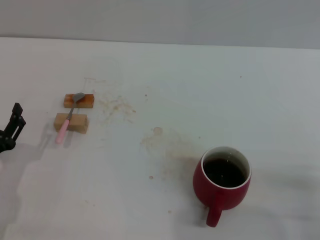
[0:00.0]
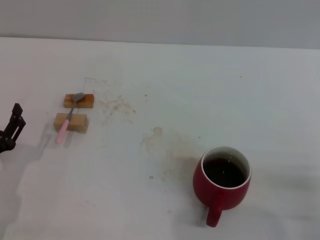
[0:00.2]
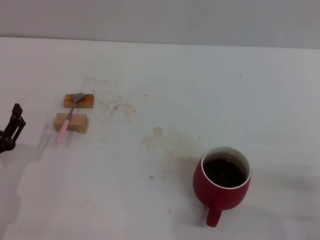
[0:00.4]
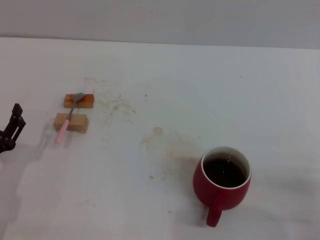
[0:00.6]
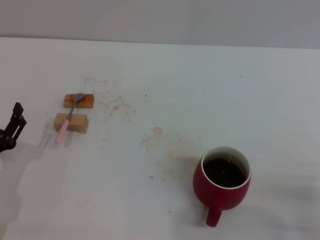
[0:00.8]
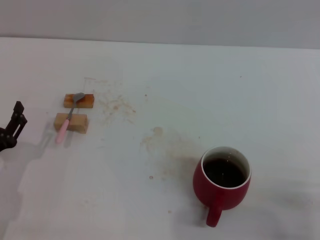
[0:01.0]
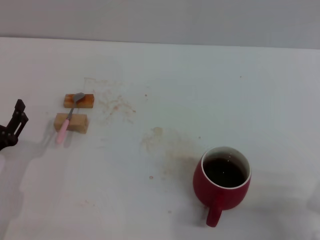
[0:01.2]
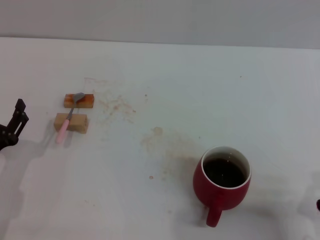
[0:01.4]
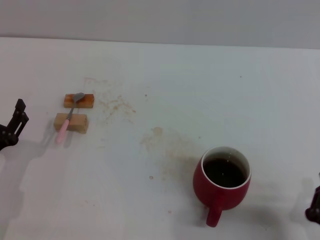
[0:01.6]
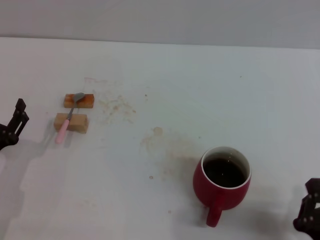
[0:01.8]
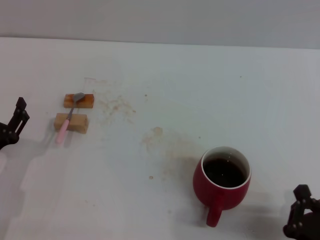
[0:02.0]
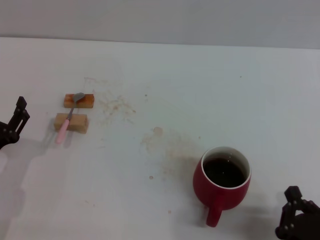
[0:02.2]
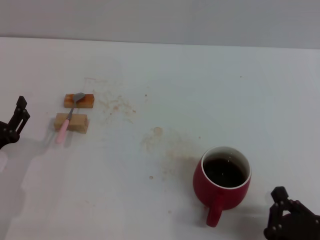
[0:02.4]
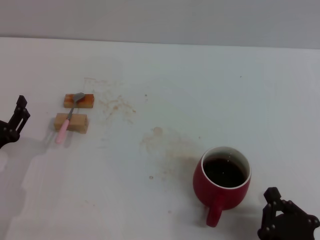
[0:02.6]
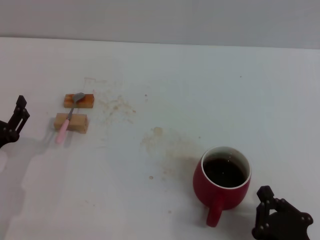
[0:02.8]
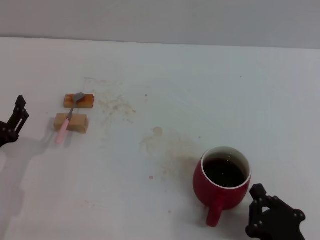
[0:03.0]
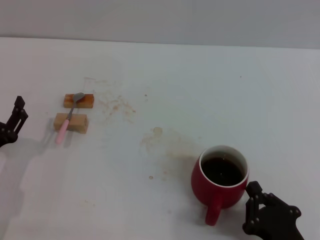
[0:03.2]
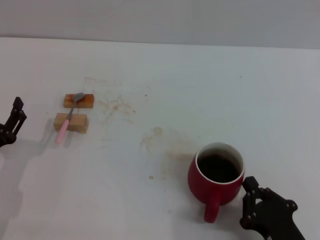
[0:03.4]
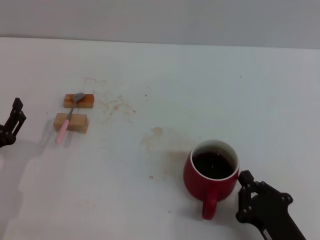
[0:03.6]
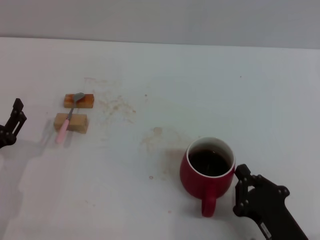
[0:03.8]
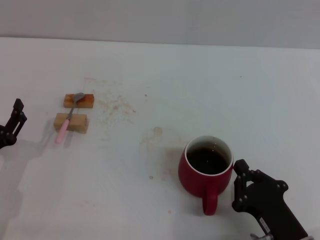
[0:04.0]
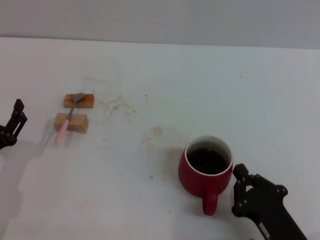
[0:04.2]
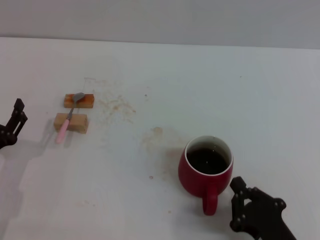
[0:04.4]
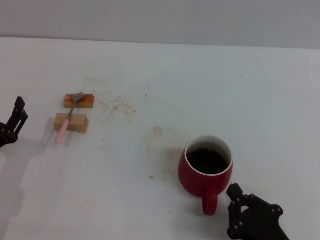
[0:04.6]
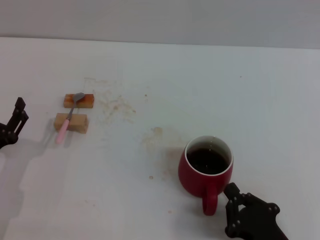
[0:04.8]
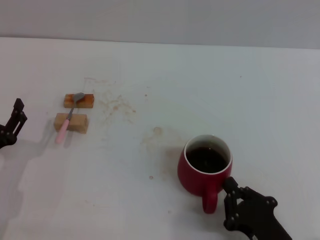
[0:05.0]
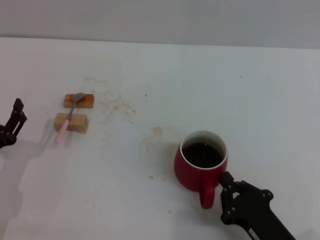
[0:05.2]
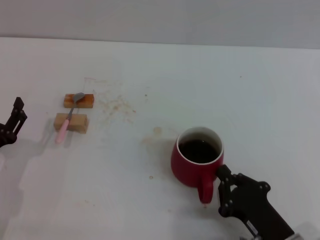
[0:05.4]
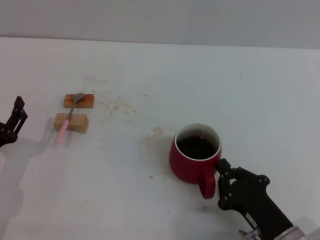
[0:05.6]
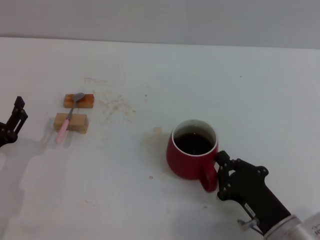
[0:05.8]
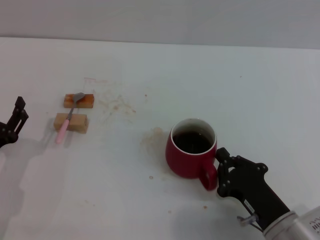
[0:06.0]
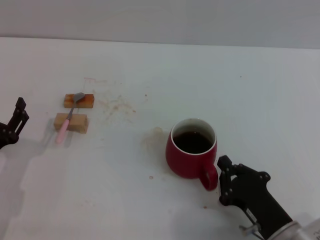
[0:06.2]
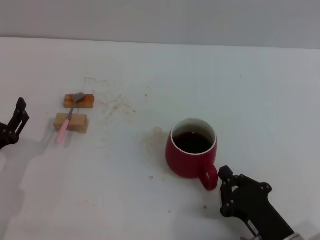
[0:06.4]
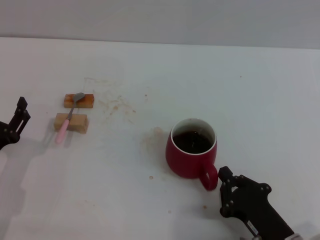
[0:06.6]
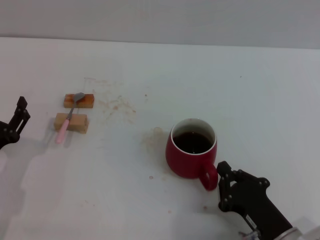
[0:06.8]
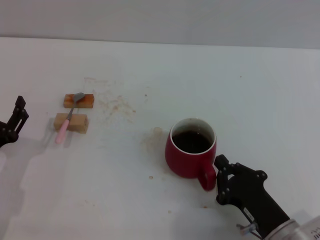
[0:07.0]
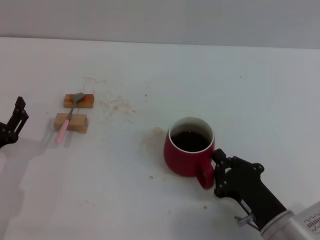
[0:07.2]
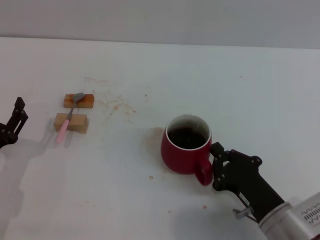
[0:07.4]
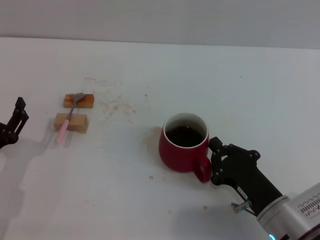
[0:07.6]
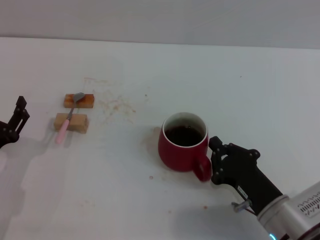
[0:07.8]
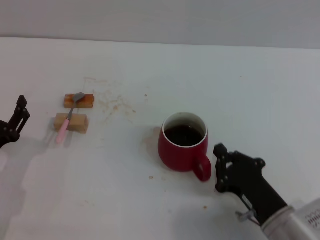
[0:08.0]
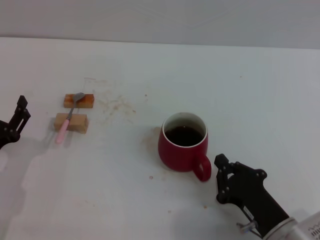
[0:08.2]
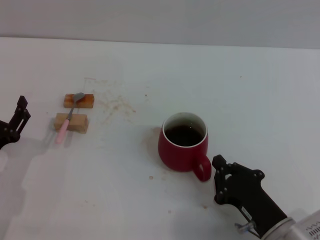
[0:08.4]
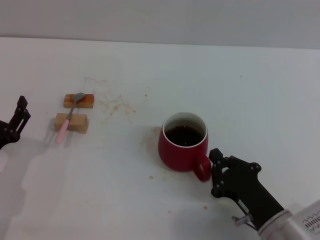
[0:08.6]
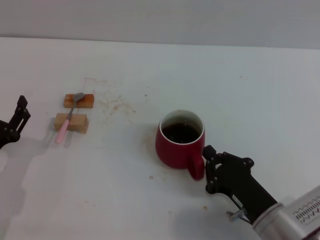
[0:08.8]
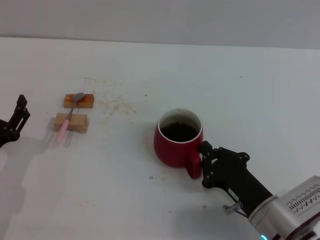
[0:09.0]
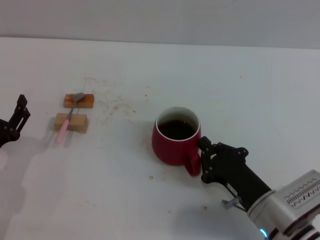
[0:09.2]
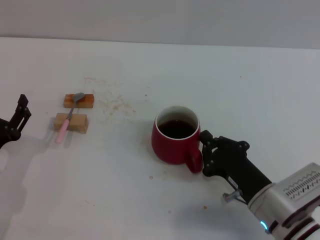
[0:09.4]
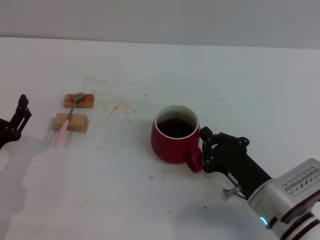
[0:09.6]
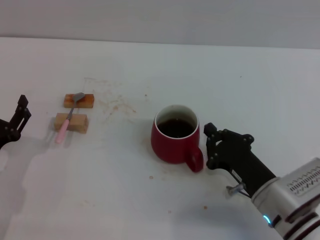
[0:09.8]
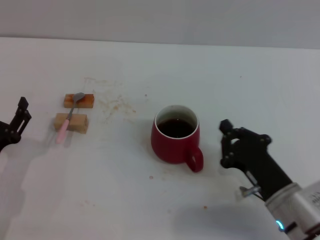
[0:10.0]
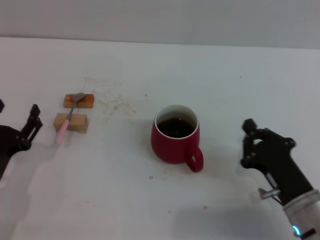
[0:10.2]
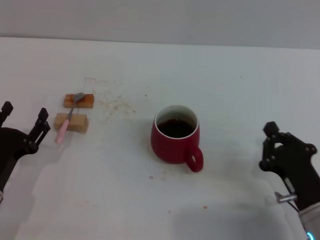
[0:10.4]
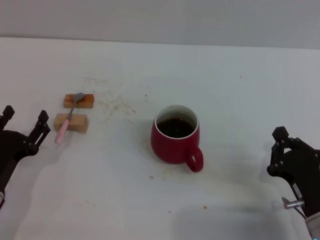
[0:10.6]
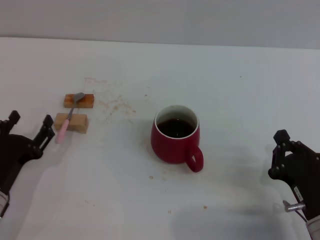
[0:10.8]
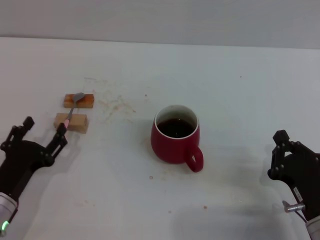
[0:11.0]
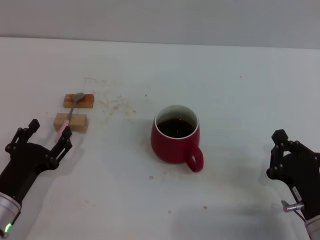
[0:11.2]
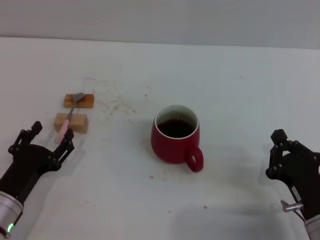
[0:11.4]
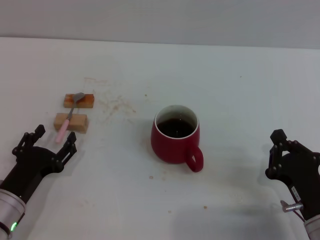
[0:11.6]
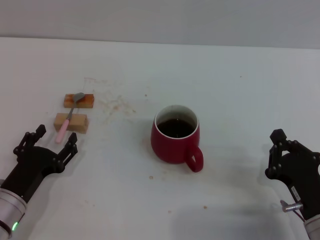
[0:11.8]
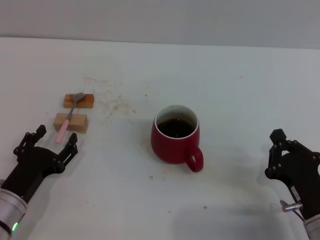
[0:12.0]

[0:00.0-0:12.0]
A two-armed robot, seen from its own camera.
Task of the whole recording: Move the red cup to the center, lift the pink spoon, stir it three times in the cup, and put the spoon into the cup.
Step, 0:00.6 to 0:09.6: Move the cup in the center of the table with right gripper.
0:00.0 to 0:01.6: The right gripper shifts about 10 cm to the left and backward.
0:01.6 to 0:03.0: The grippers stay close to where they were, moving slightly.
0:03.0 to 0:04.4: There are only small adjustments of the grippers.
0:04.4 to 0:06.0: The right gripper travels forward by about 5 cm.
0:06.0 to 0:09.0: The grippers stay close to where they were, moving slightly.
0:09.0 to 0:10.4: The right gripper shifts about 5 cm to the right.
0:10.4 to 0:12.0: The grippers move only a little.

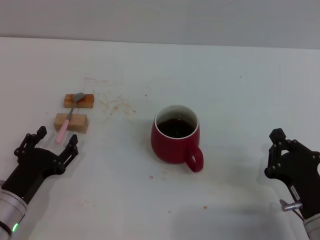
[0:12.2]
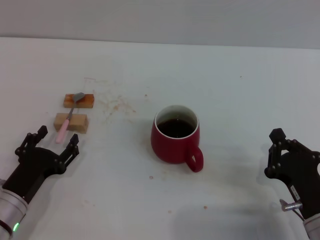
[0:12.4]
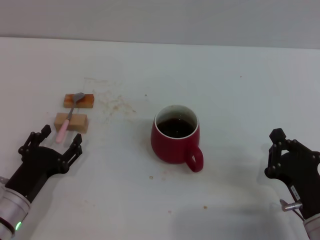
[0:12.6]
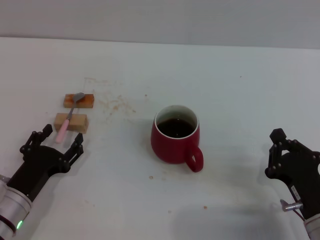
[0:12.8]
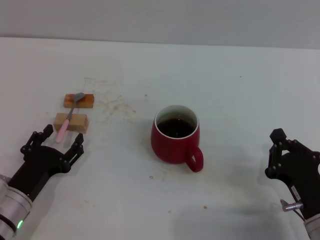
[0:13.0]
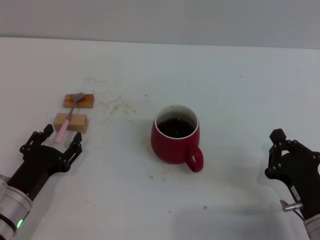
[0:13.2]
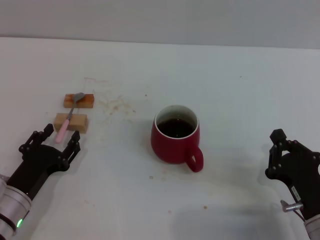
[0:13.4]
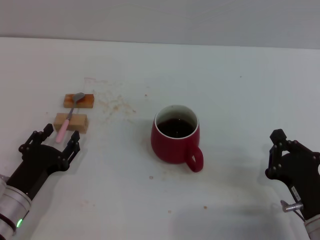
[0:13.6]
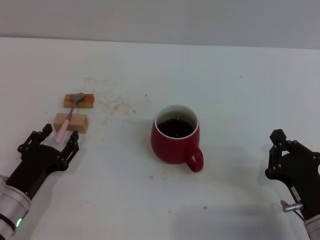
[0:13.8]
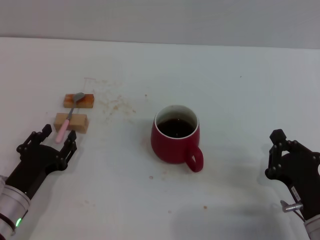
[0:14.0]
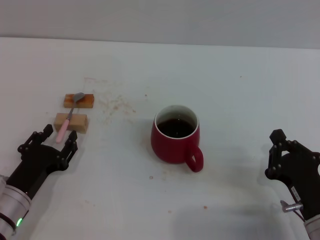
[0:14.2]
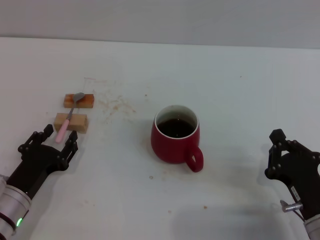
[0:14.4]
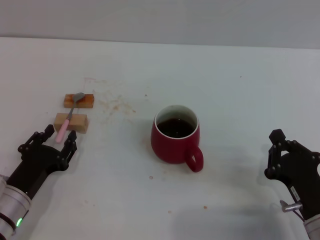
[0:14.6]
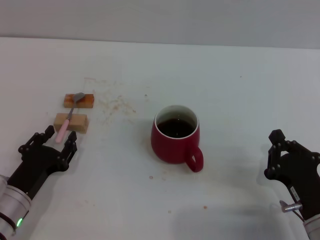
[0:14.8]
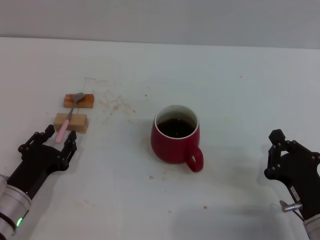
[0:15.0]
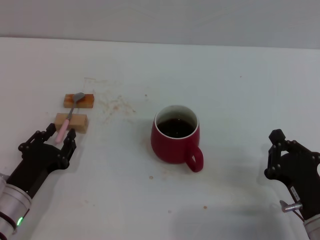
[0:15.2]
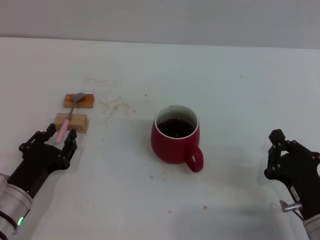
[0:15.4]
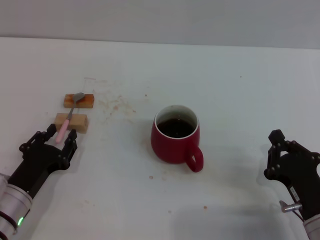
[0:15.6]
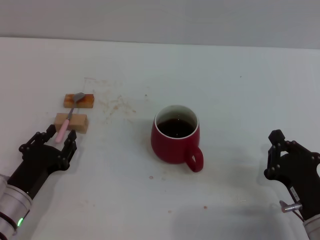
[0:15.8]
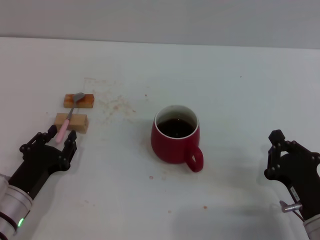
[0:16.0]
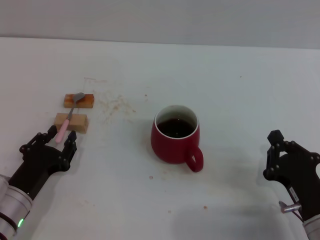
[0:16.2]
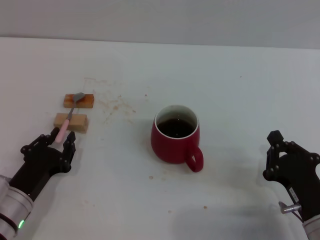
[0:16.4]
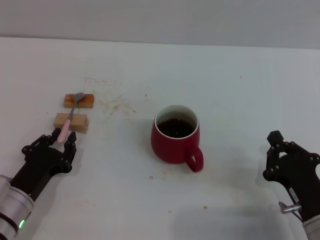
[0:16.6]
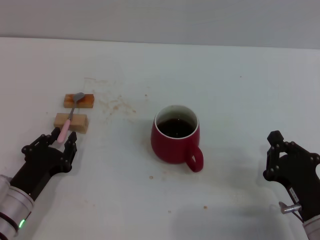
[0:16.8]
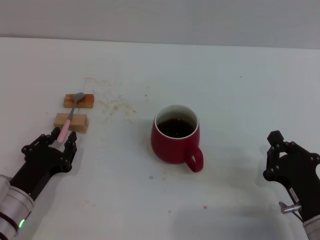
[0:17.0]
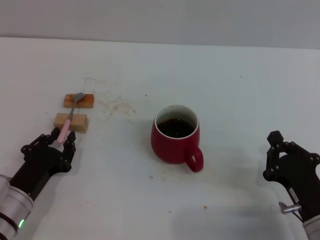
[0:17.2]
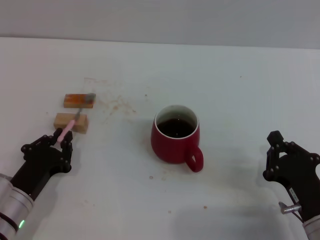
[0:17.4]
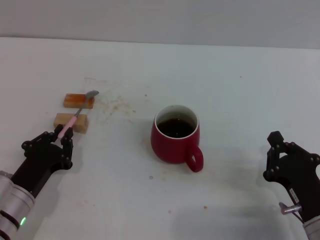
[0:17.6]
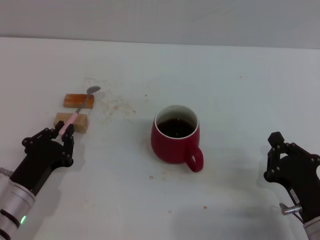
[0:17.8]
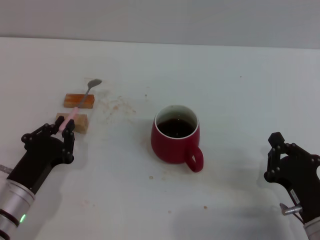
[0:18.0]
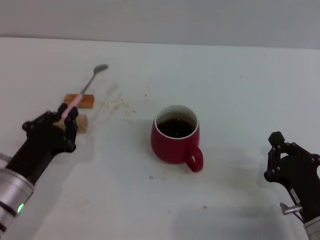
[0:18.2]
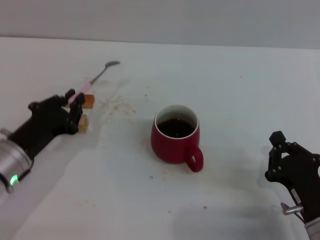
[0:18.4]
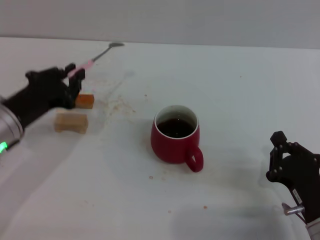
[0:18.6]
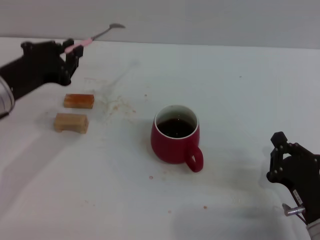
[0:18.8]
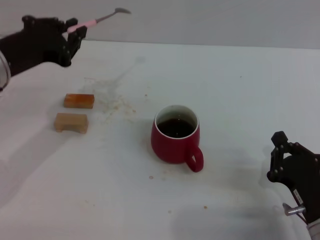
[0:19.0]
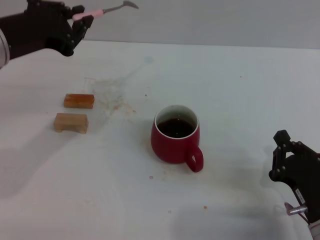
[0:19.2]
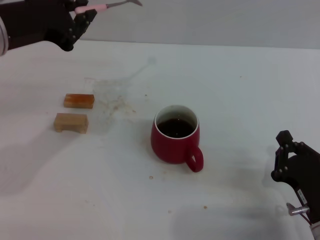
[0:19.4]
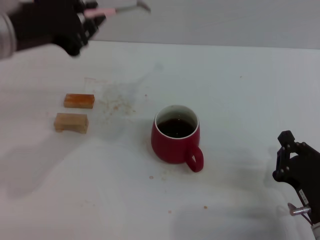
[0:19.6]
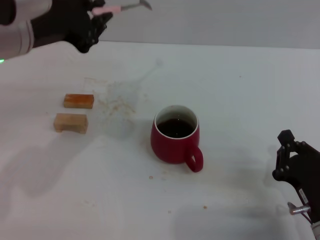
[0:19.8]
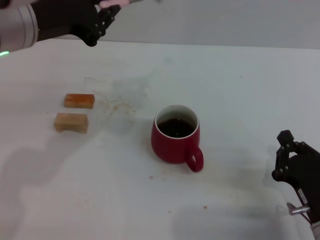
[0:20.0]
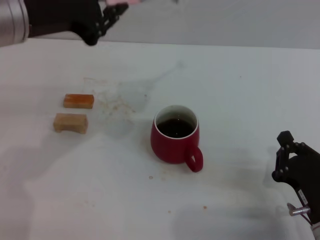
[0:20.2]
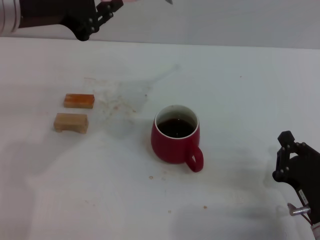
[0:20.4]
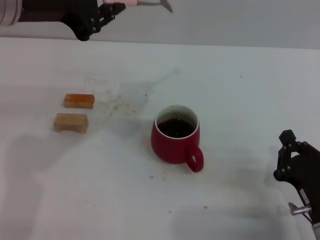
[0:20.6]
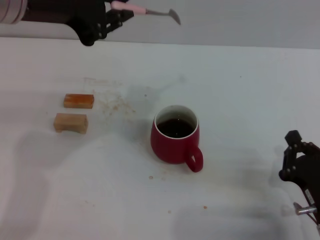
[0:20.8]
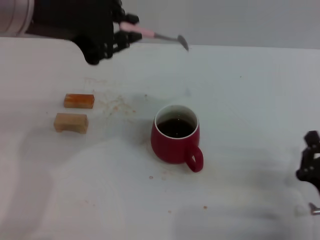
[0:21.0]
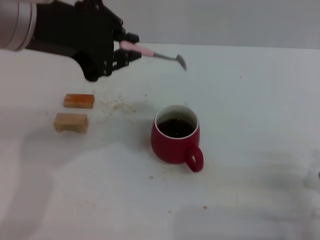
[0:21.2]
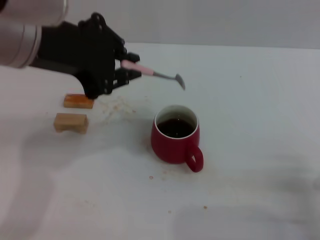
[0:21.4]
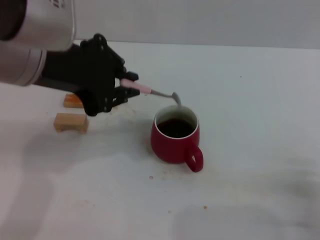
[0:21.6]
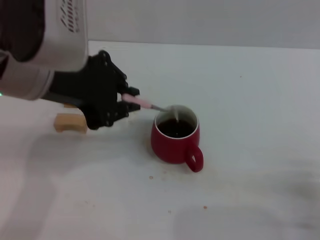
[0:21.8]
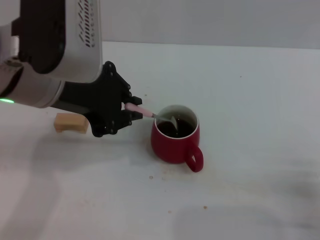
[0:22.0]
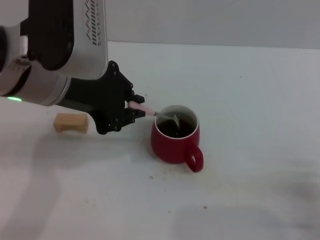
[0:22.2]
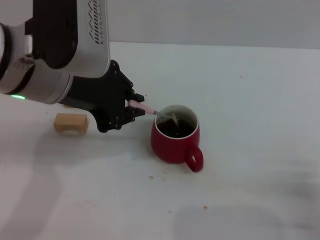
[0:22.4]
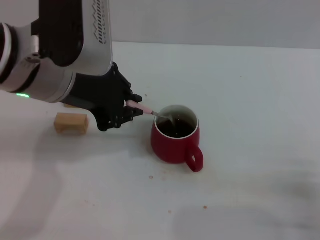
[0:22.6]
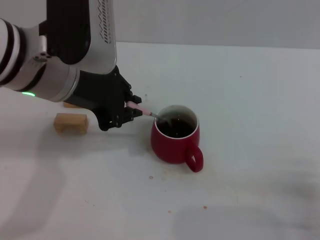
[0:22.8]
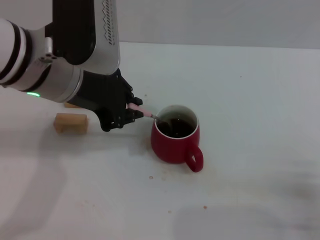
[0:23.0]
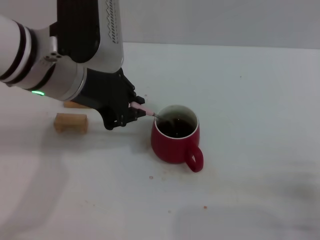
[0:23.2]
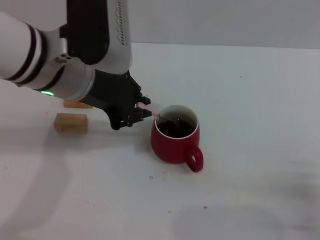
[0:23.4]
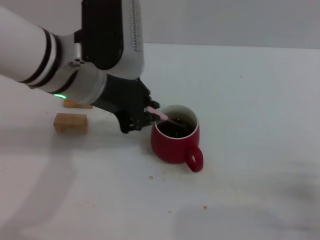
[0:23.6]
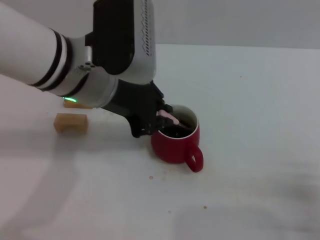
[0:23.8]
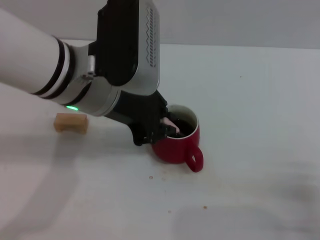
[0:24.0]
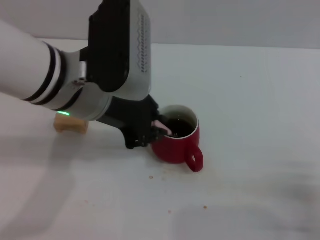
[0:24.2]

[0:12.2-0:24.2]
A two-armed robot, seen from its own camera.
Task of the whole recording: Move the red cup to the center, lift the pink spoon, stir it three times in the cup, and put the spoon into the cup.
Step, 0:12.2 to 0:17.4: Grasp the spoon with left gripper.
0:12.2 to 0:16.6: Both grippers stay put.
0:16.6 to 0:18.2: There are only small adjustments of the grippers.
0:18.2 to 0:19.8: The left gripper travels upward by some 25 cm.
0:19.8 to 0:21.2: The left gripper heads upward, covering about 5 cm.
0:21.2 to 0:22.6: The left gripper goes approximately 5 cm downward.
